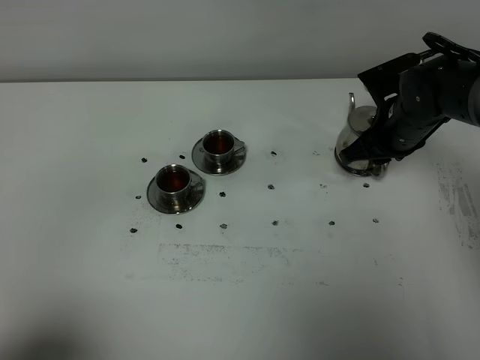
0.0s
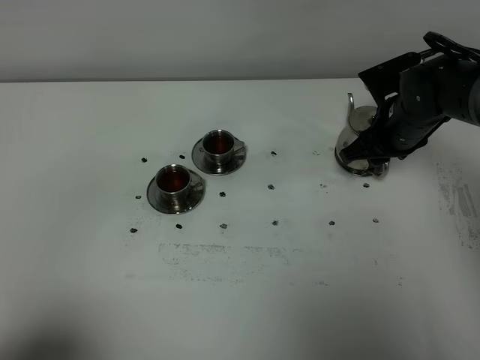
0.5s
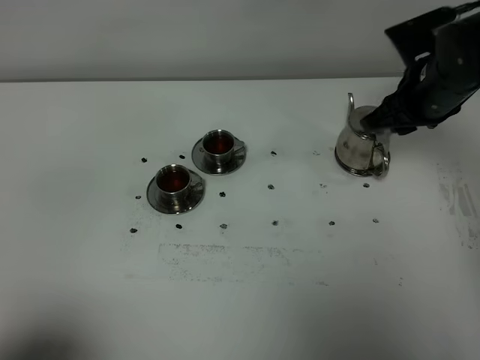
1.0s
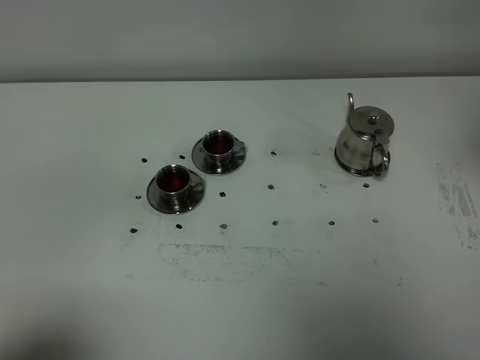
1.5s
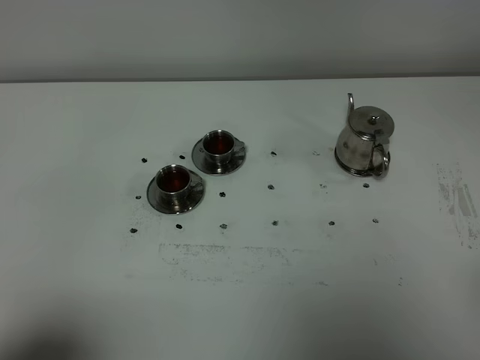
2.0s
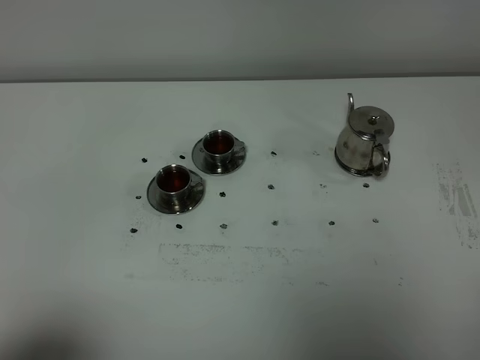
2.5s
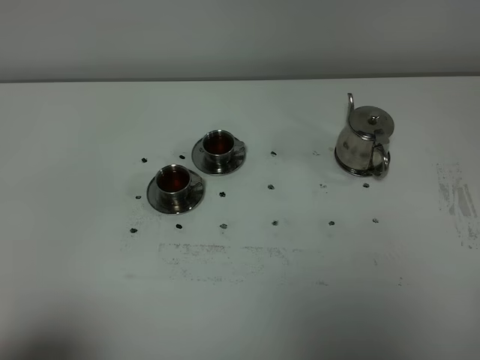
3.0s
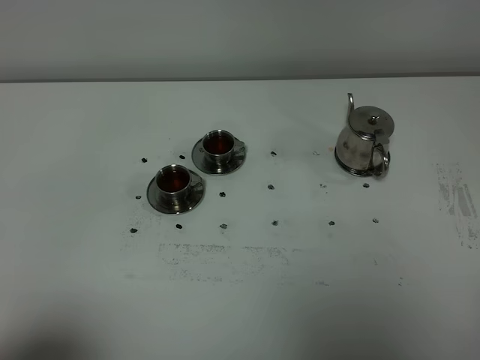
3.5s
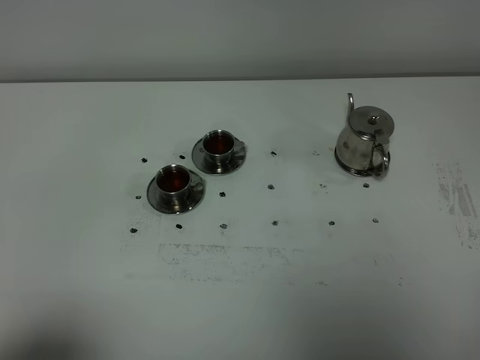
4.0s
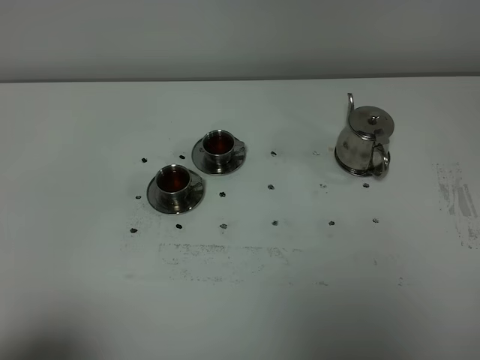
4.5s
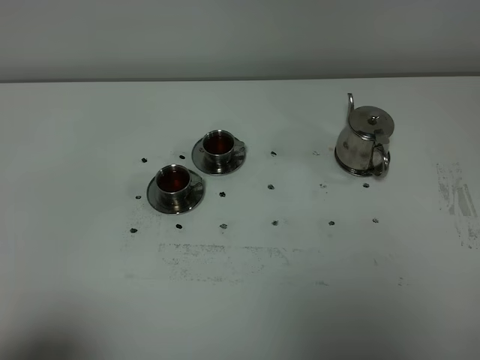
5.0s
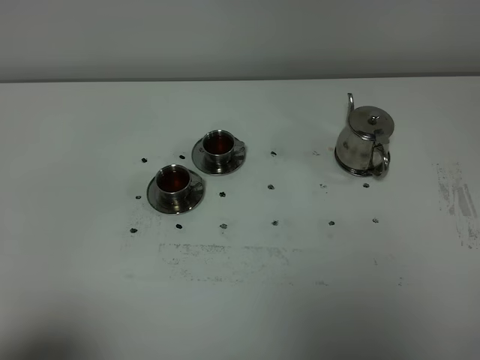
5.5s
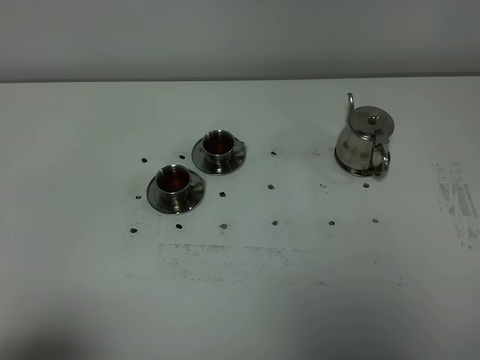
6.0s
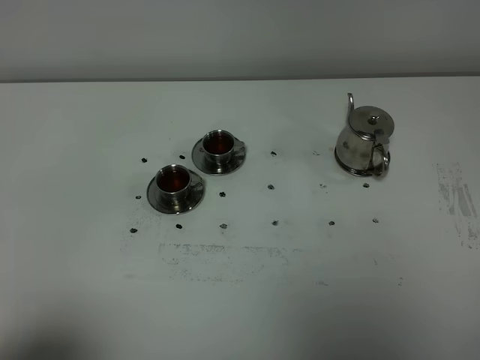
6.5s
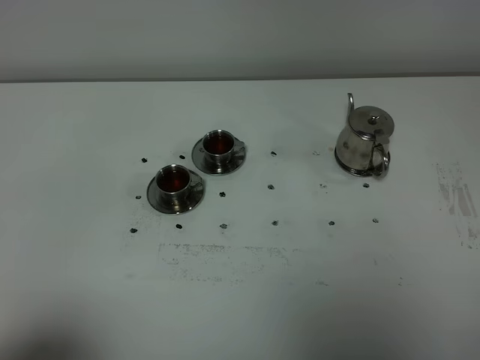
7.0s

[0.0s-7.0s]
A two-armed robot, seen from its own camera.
Task of the whole recording: grasp the stainless steel teapot and pour the tea into the two stainless steel teacups one by one, put the stainless steel teapot back in its original place.
0.0s to 2.0s: The right gripper moves backward and upward, roughly 40 cm.
5.0s to 7.0s: Neither gripper changes place.

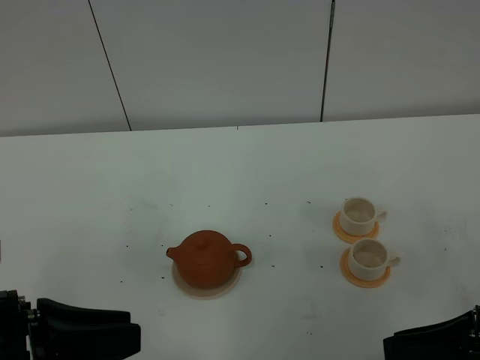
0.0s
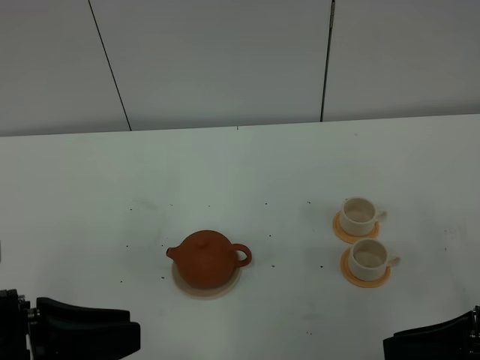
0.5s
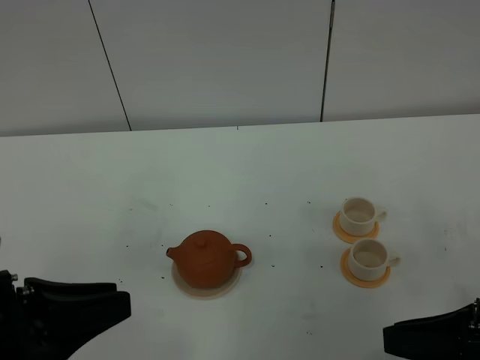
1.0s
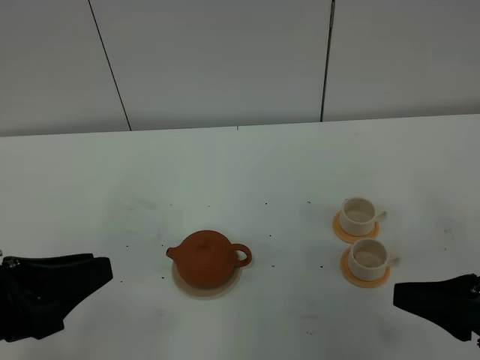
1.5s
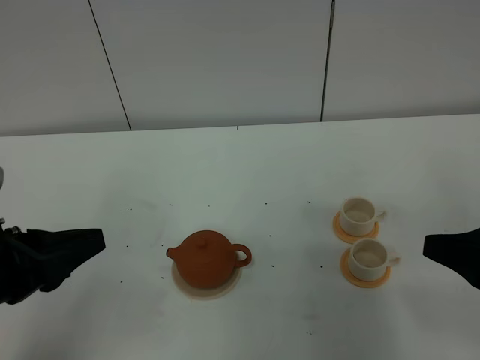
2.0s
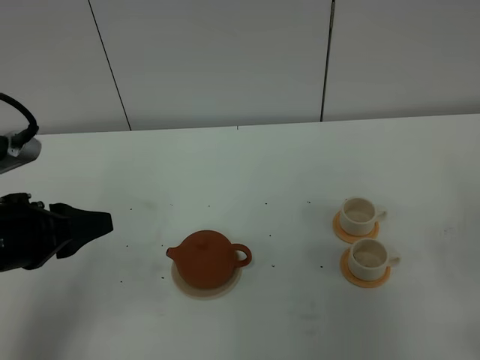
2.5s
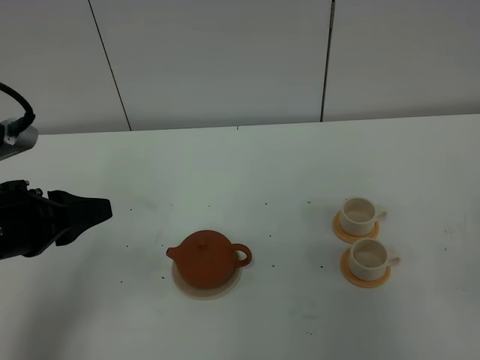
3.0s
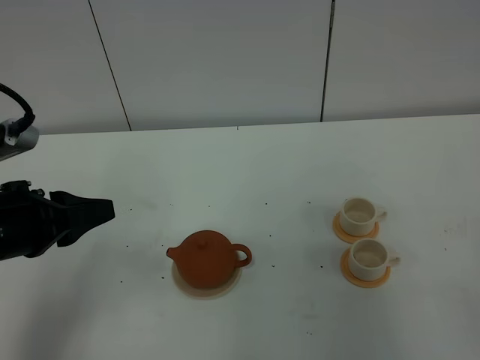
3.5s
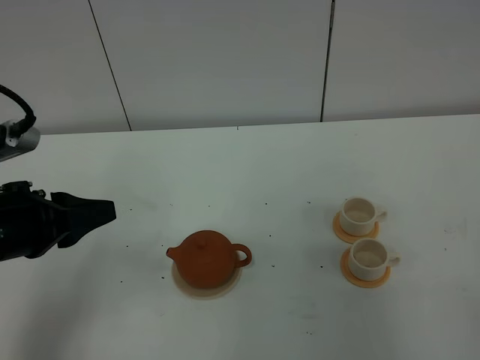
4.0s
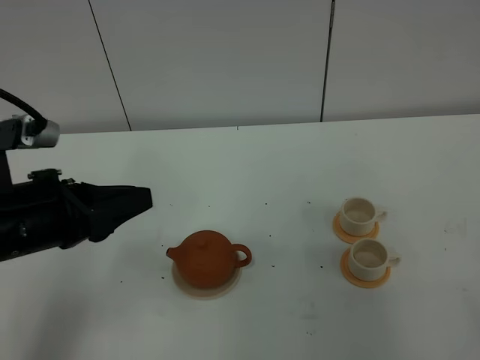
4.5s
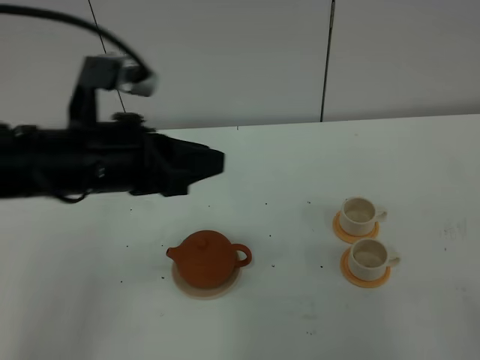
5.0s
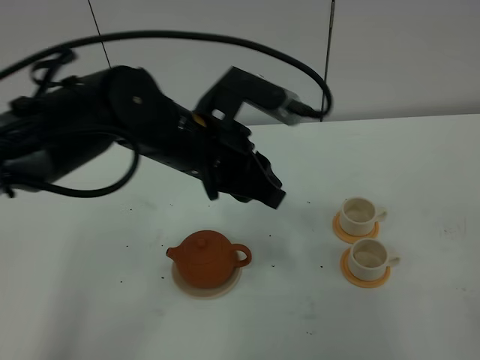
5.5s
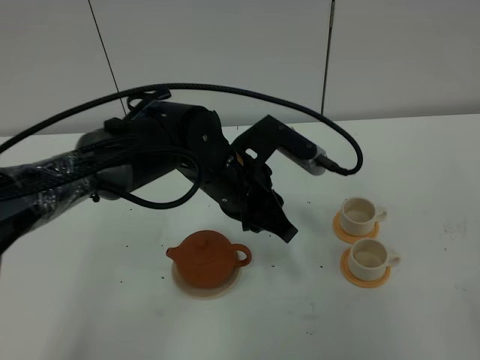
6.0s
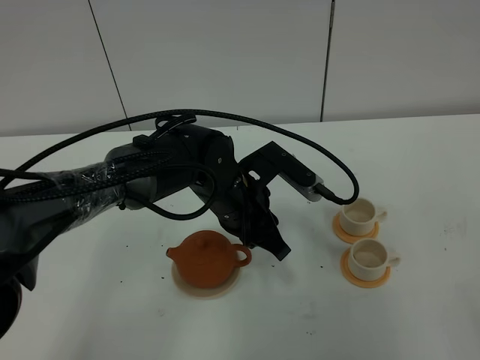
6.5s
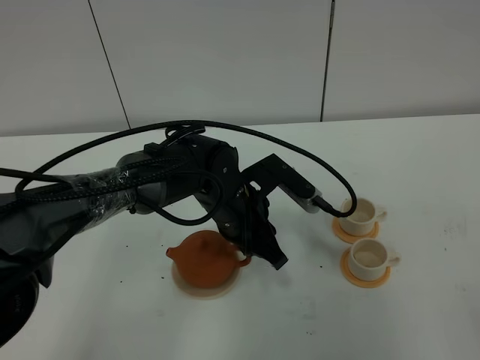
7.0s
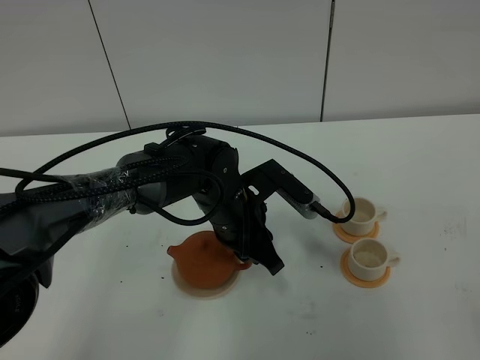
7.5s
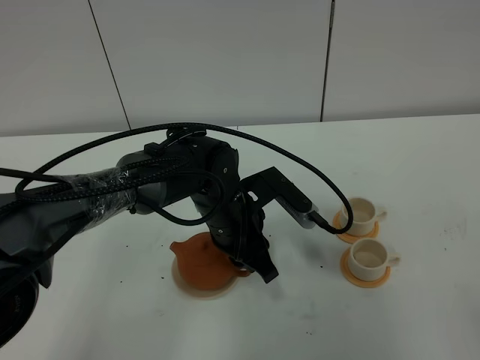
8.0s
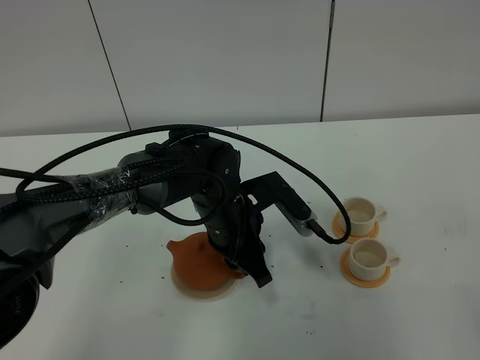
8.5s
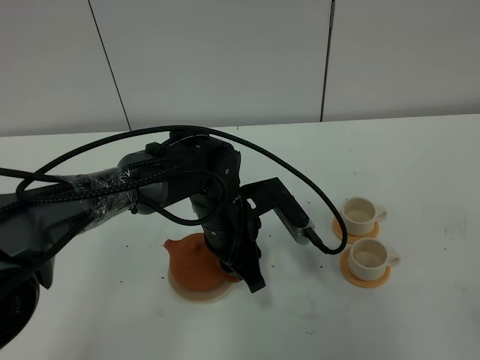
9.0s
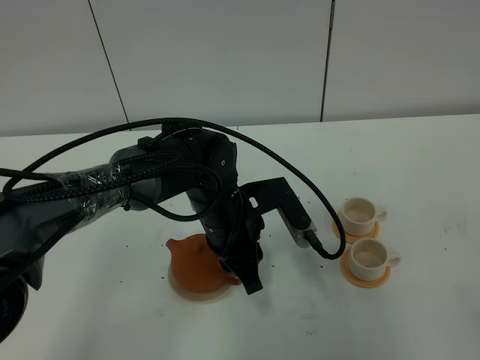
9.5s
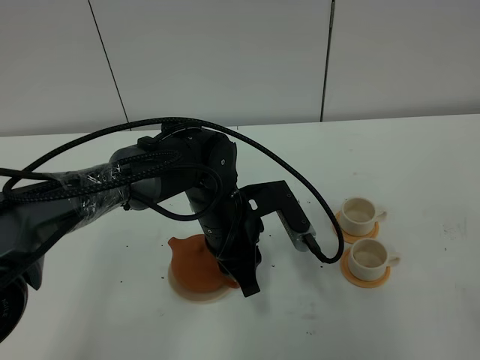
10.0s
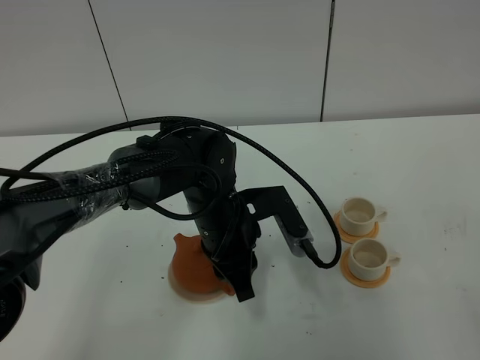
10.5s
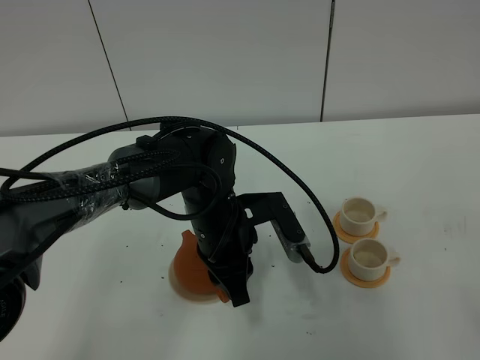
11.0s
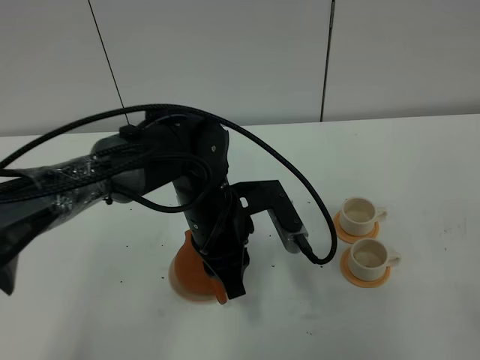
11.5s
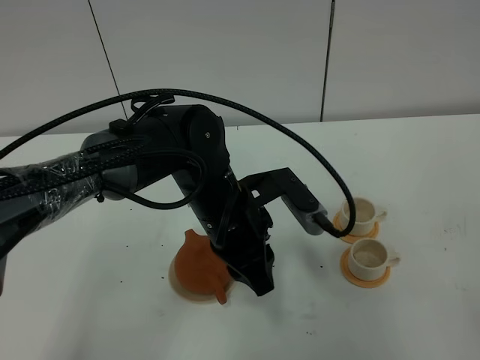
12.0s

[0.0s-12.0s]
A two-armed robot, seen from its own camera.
Task of the whole recording: grasp the brown teapot and pour the tea into the two white teacups one by one, put the brown teapot back in its original place.
0.0s to 2.0s: The right gripper moves approximately 5 cm, while the left gripper goes some 5 cm forward.
2.0s to 4.0s: The right gripper heads backward, covering about 20 cm, and closes up. Meanwhile the left gripper goes approximately 5 cm forward.
4.0s to 6.0s: The left gripper goes approximately 25 cm to the right and forward.
6.0s to 8.0s: The left gripper goes roughly 5 cm downward.
8.0s to 10.0s: The grippers make only small movements.
10.0s to 12.0s: There are only small adjustments of the grippers.

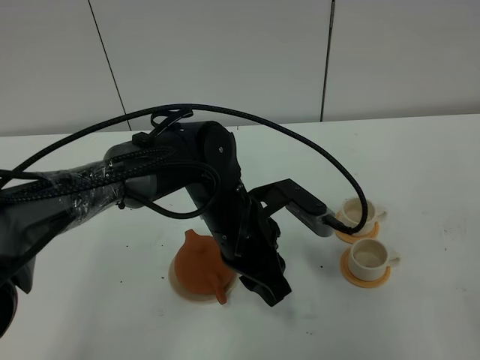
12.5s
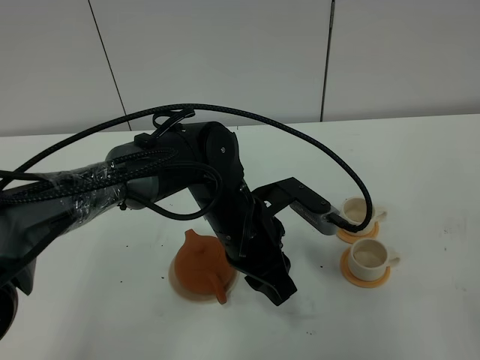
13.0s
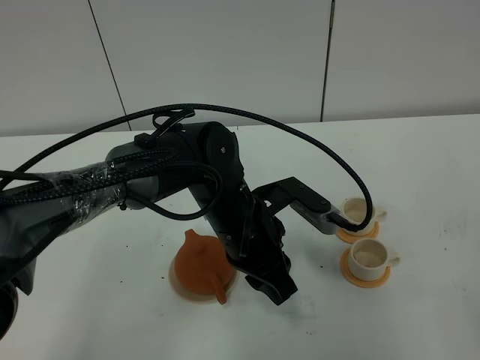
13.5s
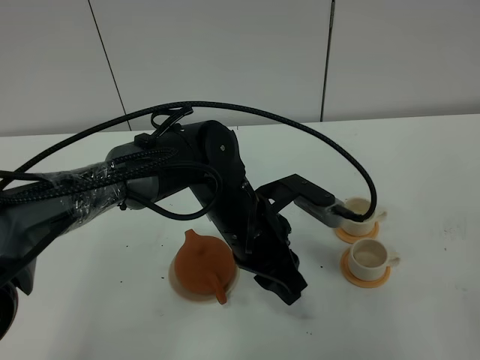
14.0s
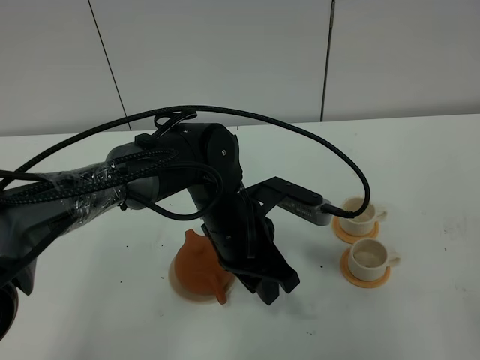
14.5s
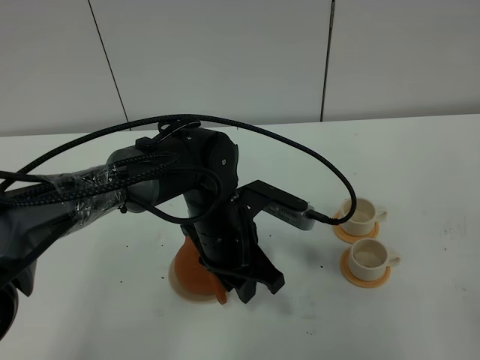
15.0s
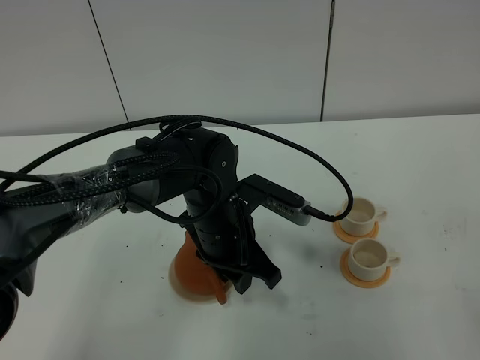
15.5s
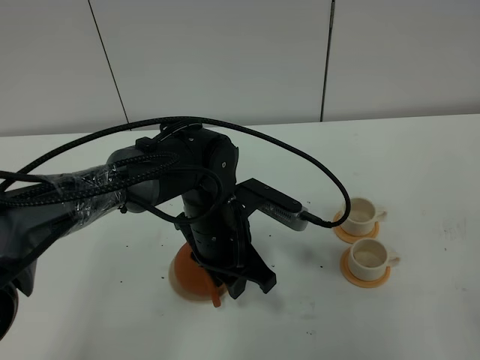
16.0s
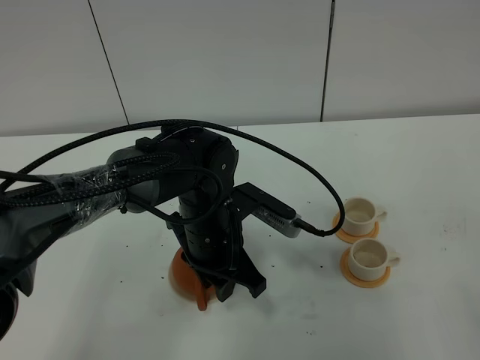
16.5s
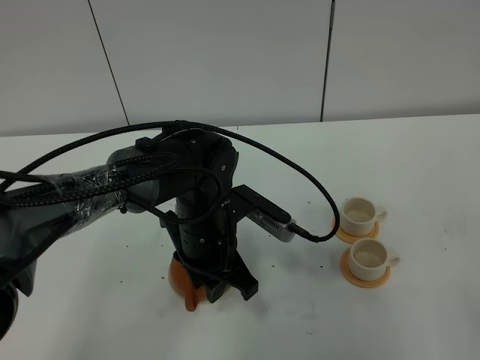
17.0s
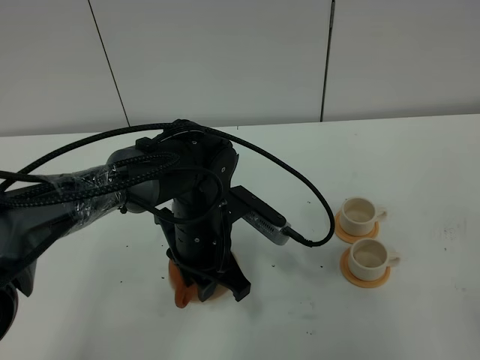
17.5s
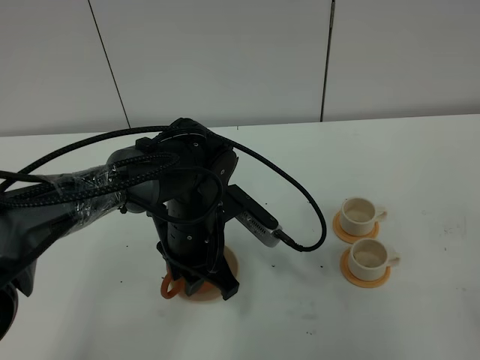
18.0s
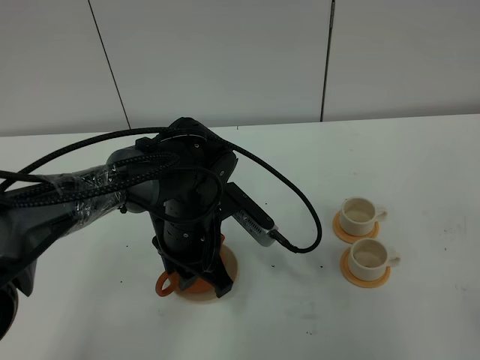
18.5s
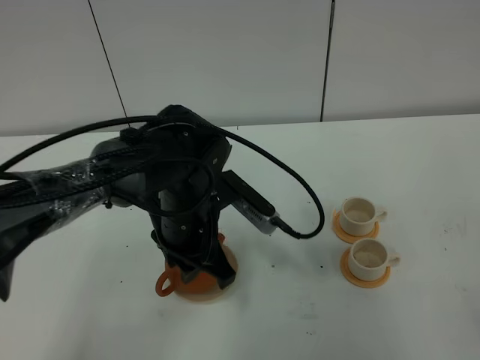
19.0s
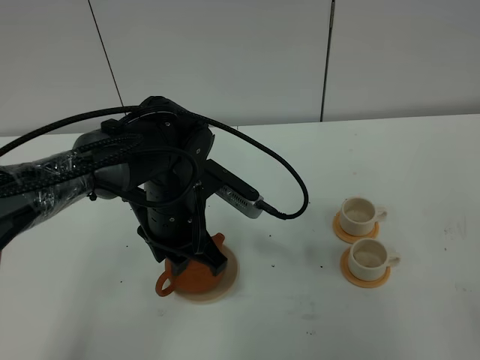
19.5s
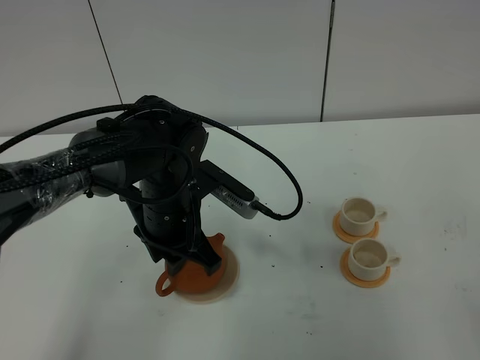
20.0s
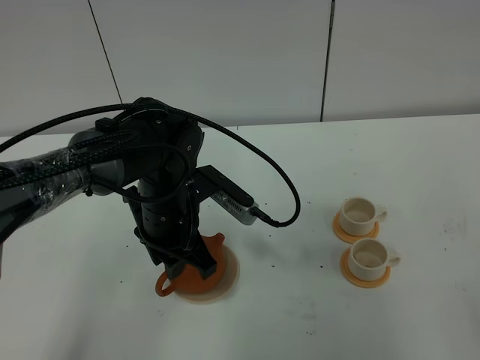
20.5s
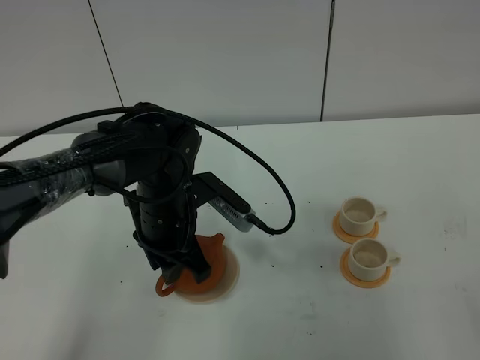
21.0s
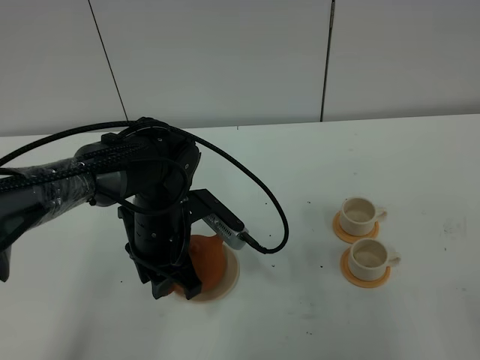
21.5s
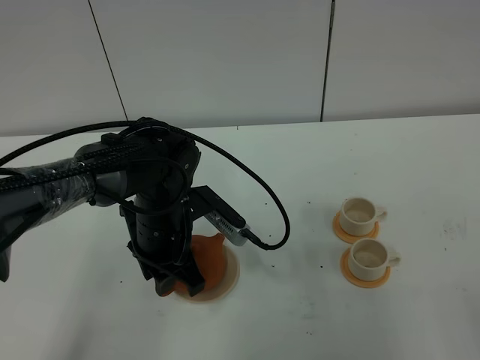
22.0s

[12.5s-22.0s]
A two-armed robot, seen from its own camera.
Task of the whole recording: grasp the brown teapot and pour the tea into the two white teacups one by one, put the brown teapot back in its original place.
12.5s to 14.5s: The grippers stay close to where they were, moving slightly.
14.5s to 16.5s: The grippers stay close to where they were, moving slightly.
16.5s to 22.0s: The grippers make only small movements.
